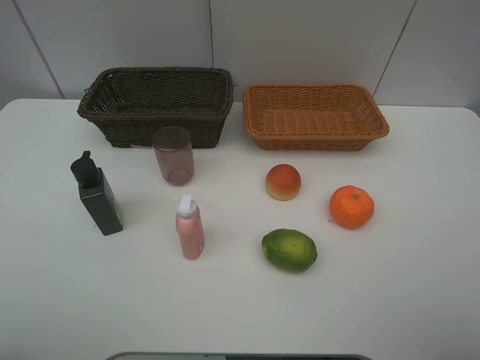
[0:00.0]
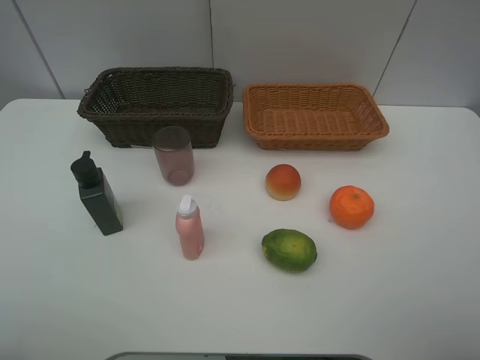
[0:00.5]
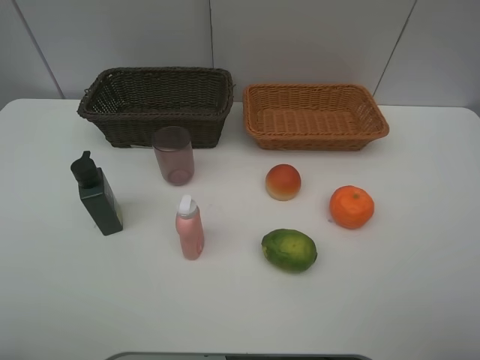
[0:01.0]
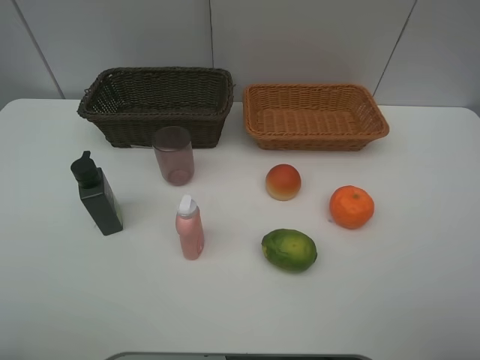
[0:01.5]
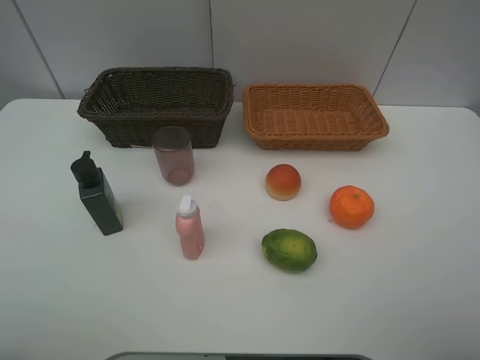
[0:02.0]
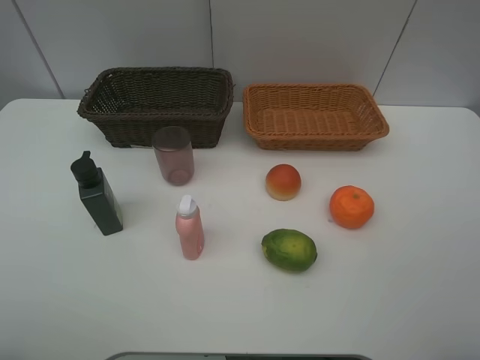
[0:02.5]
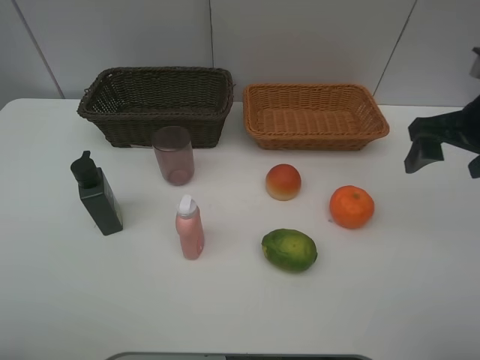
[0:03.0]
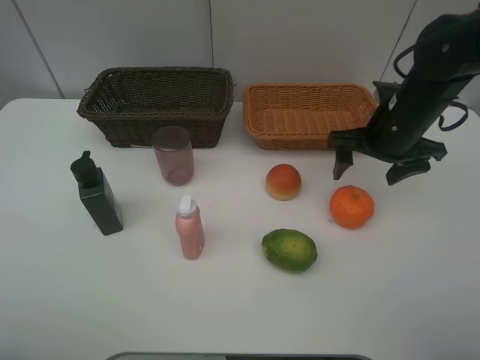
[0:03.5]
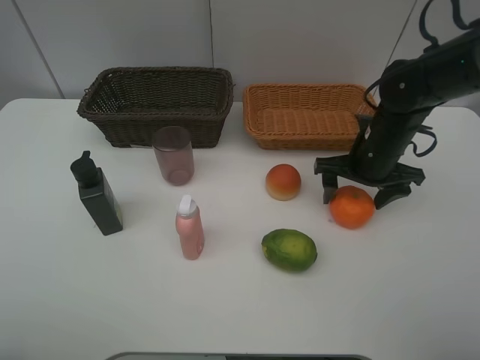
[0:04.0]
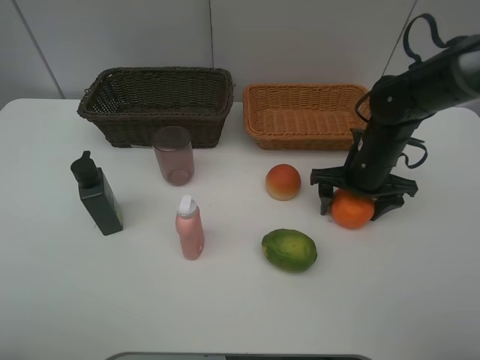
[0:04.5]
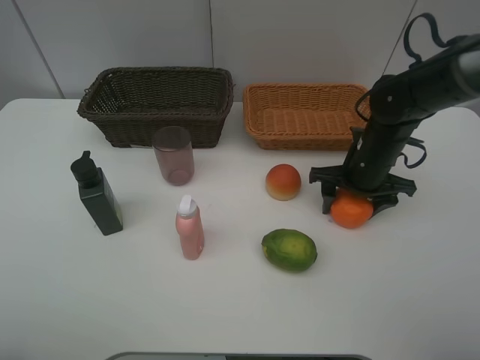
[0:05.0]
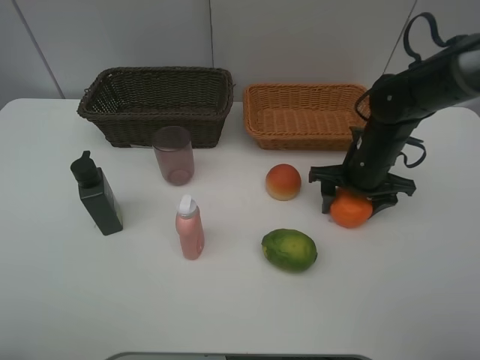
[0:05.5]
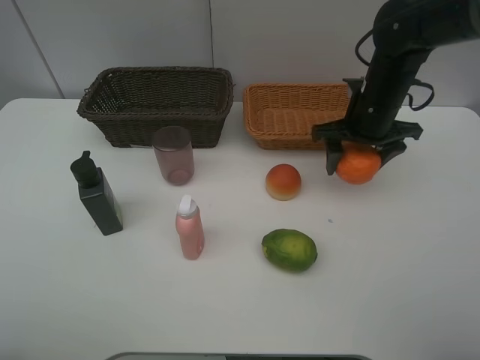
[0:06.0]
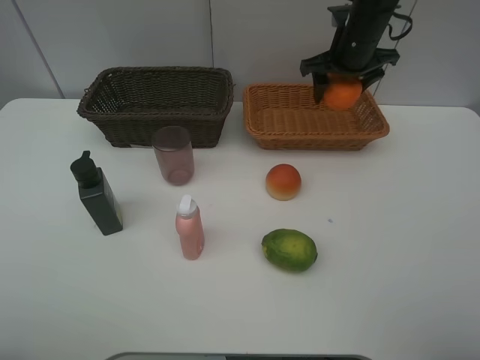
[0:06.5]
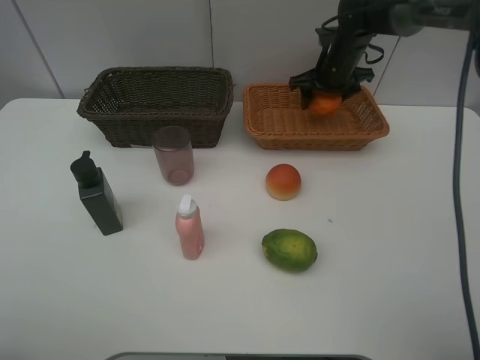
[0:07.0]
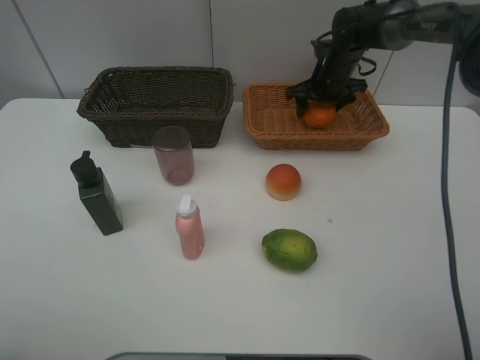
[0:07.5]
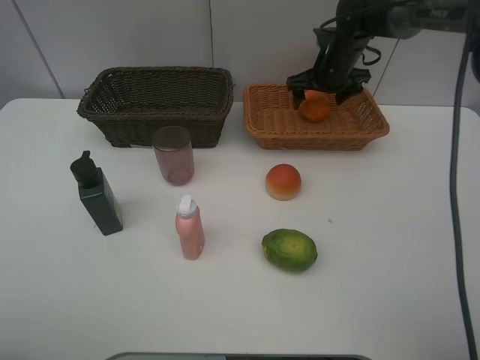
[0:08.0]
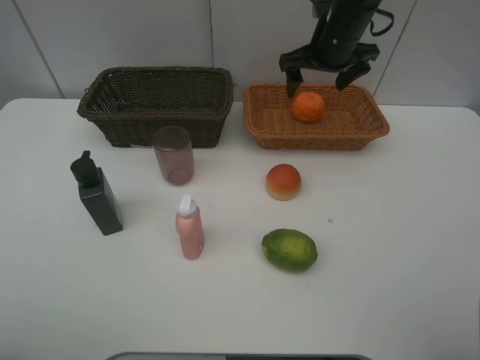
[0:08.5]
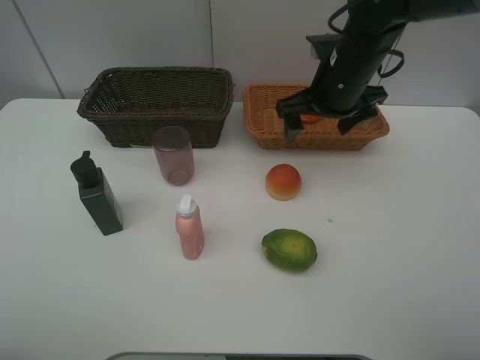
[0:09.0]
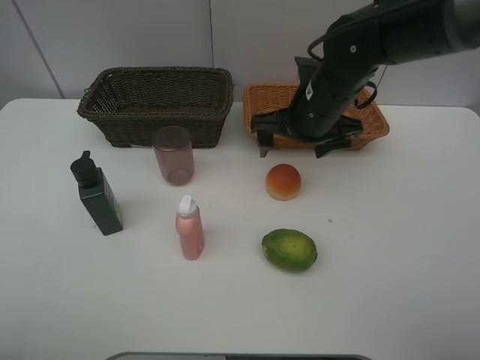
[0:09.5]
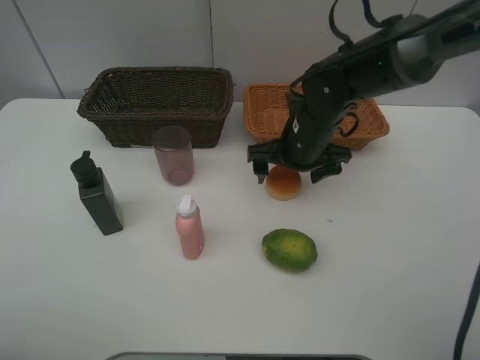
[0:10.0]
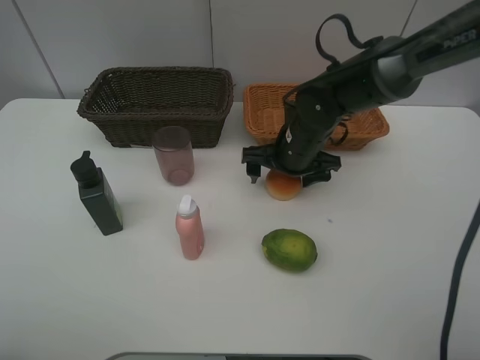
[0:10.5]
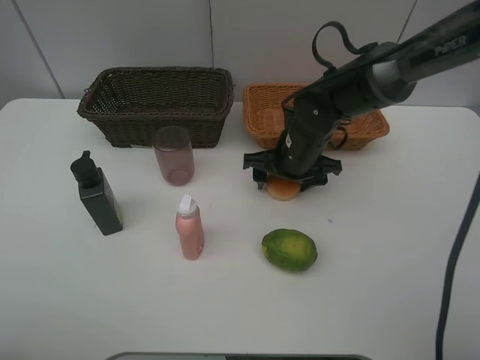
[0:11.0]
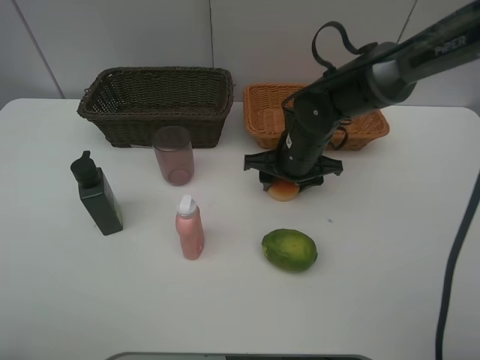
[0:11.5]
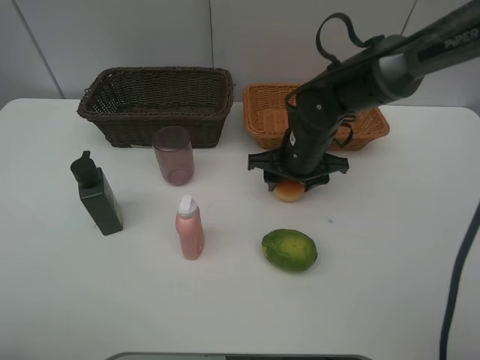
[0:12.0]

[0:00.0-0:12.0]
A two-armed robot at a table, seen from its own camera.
Task of the whole recording: place multiple objects separately in different baskets.
0:00.0 to 0:02.0: Both grippers stay about where they are.
0:02.0 to 0:04.0: The right gripper moves forward and downward, roughly 35 cm.
0:04.0 to 0:06.0: The right gripper goes some 5 cm upward, and closes its fingers.
0:06.0 to 0:08.0: The right gripper shifts about 15 cm forward, and opens.
0:08.0 to 0:10.0: The right gripper is displaced backward and to the left by some 20 cm.
0:10.0 to 0:12.0: The right gripper closes up.

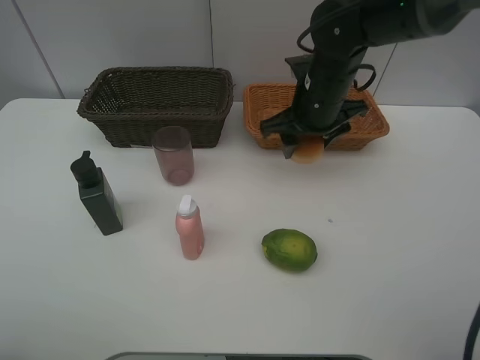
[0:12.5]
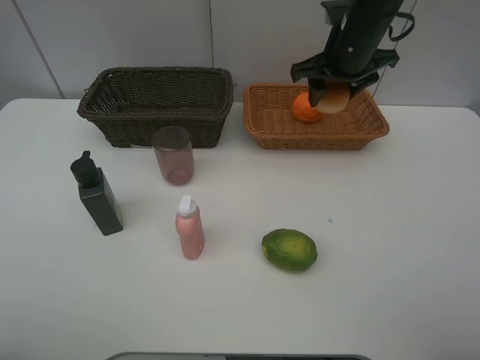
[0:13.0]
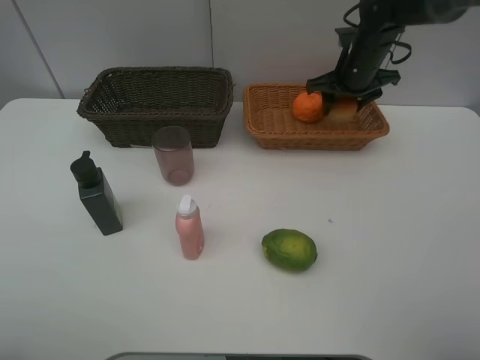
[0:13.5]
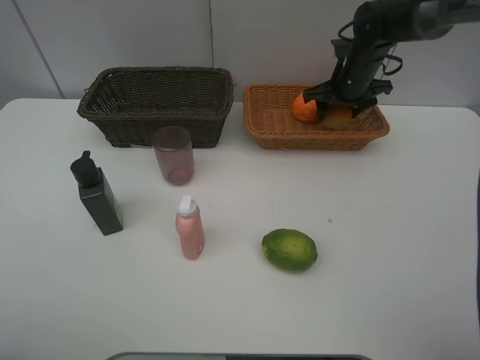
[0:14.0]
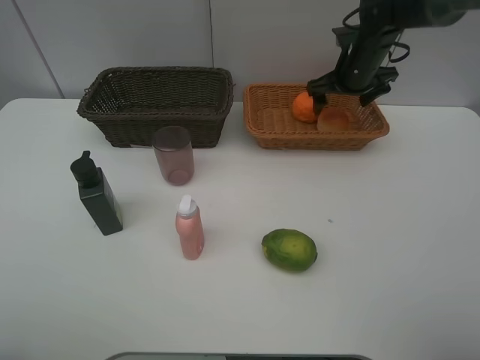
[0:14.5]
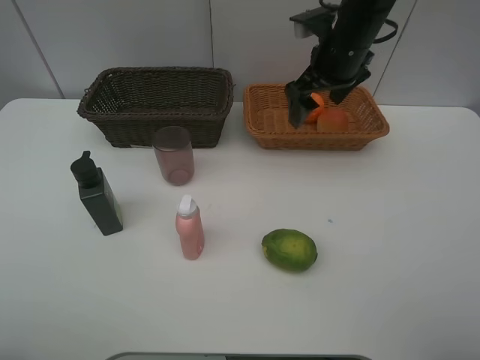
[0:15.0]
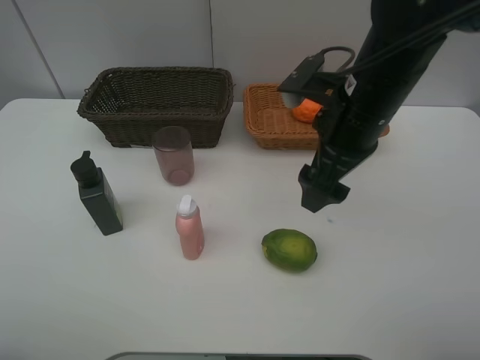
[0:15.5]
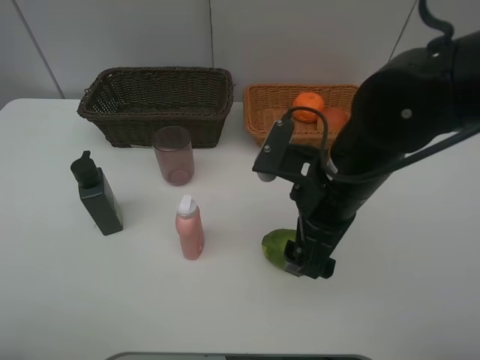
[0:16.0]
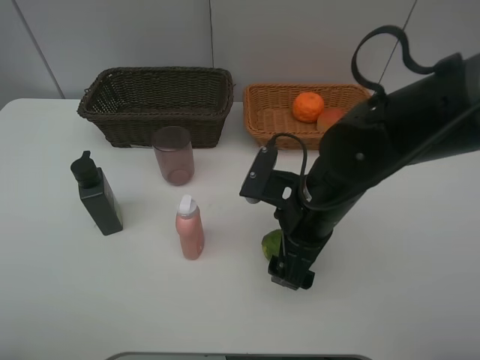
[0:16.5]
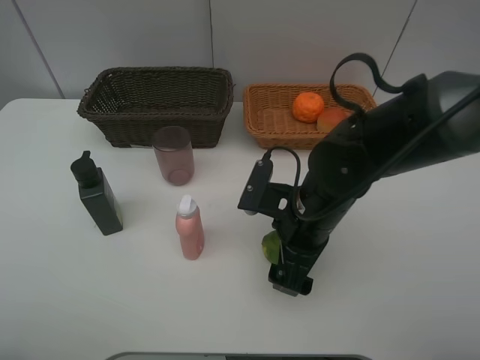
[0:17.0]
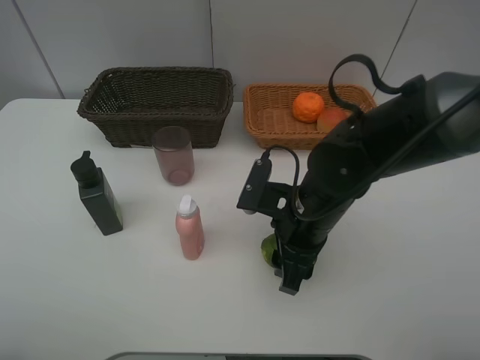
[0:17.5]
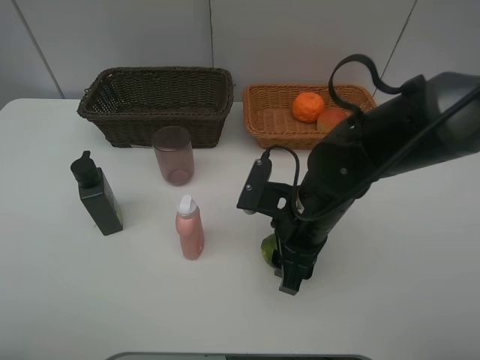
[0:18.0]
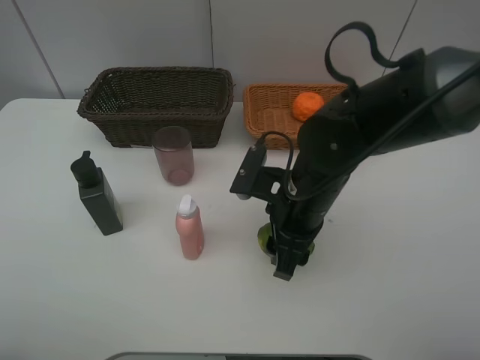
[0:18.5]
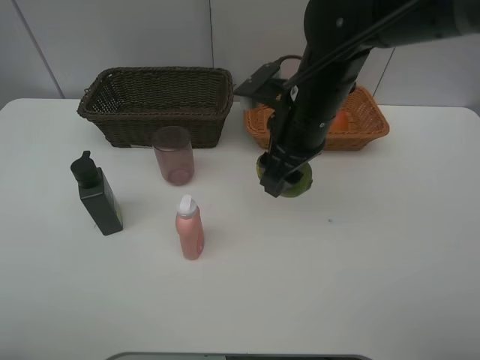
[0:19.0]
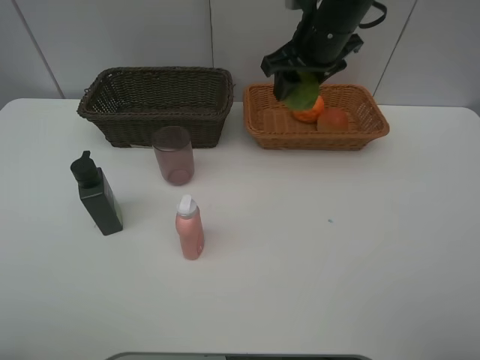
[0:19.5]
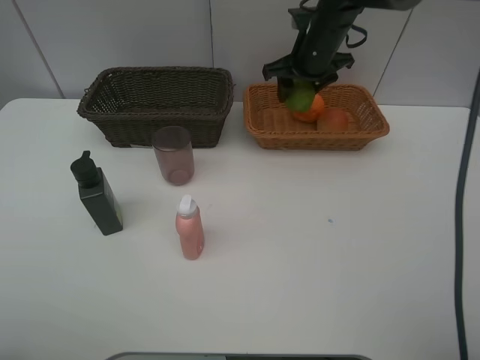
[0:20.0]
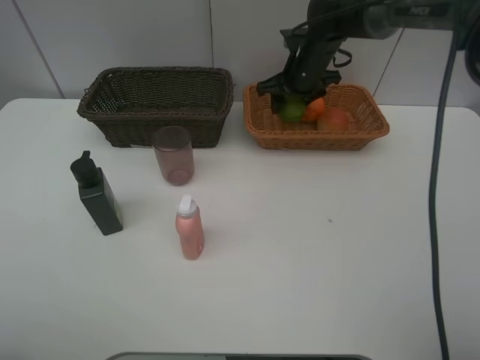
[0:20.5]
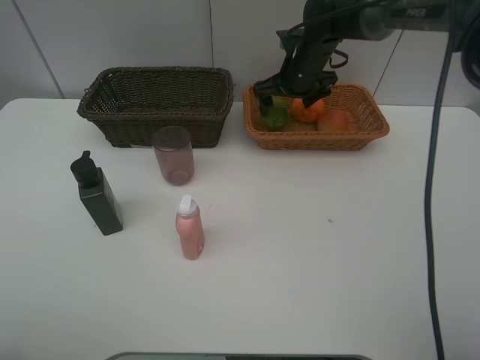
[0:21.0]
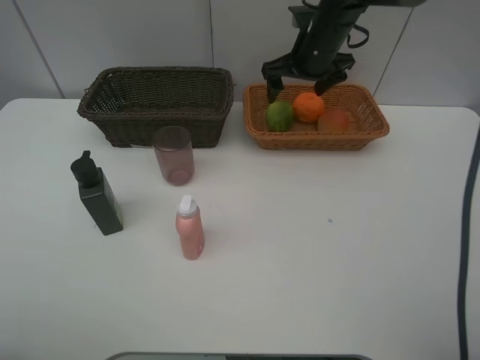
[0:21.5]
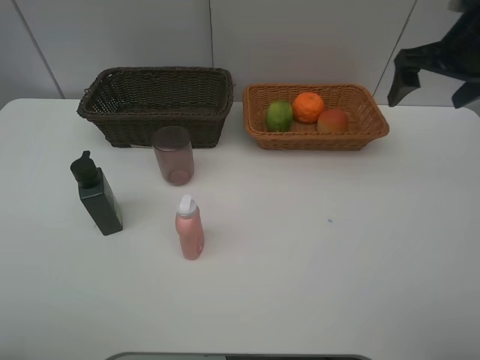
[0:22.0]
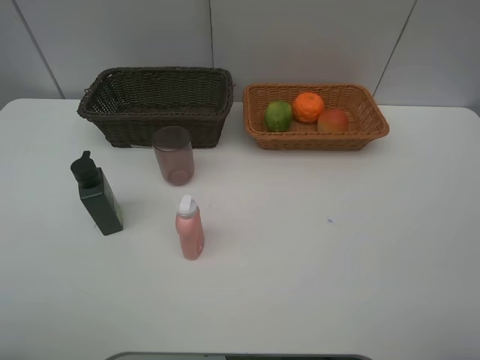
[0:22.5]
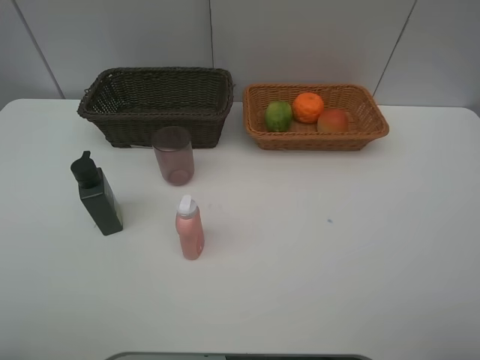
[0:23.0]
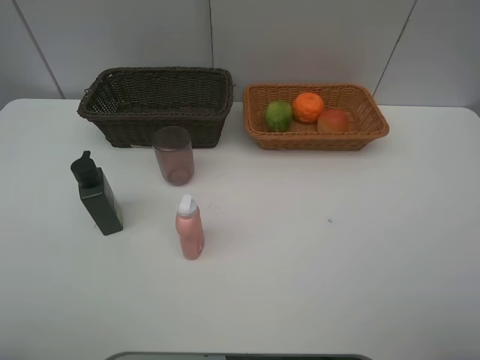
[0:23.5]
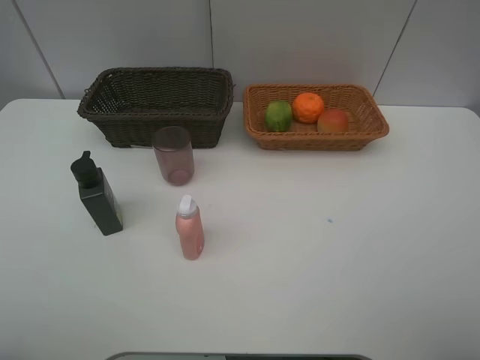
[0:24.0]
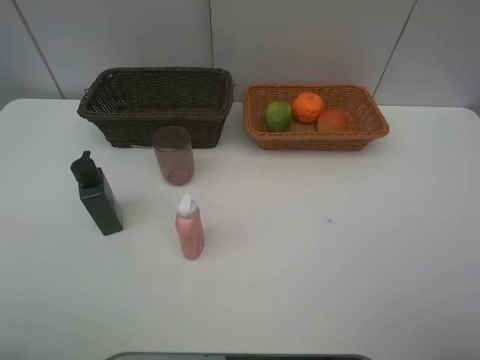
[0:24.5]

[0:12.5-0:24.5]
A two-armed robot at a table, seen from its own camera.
Task of the whole recording: place multiple objects separately in different baskets.
0:12.5 to 0:14.5: The right gripper heads forward and to the right, covering about 15 cm, and opens.
0:14.5 to 0:16.5: The right gripper heads backward and to the left, covering roughly 30 cm.
0:16.5 to 0:18.5: The right gripper closes its fingers.
0:18.5 to 0:20.5: The right gripper heads forward, covering some 25 cm.
0:20.5 to 0:22.5: The right gripper is displaced backward, upward and to the right by some 50 cm, and opens its fingers.

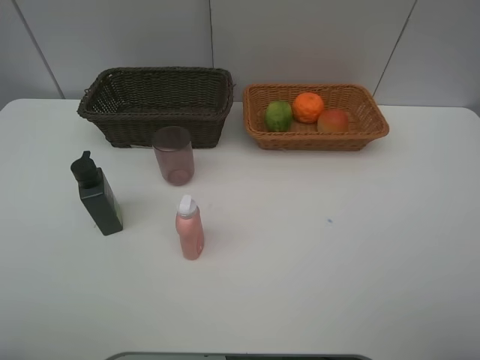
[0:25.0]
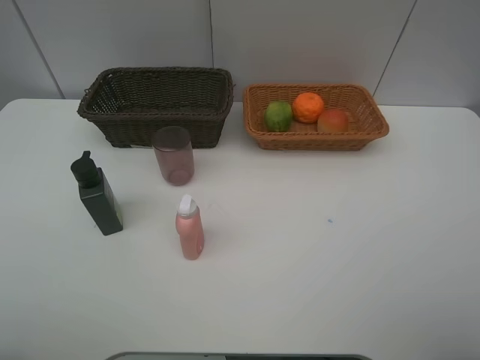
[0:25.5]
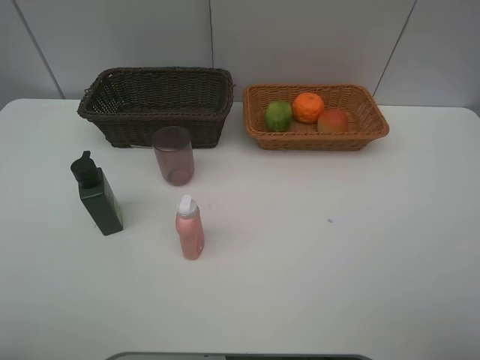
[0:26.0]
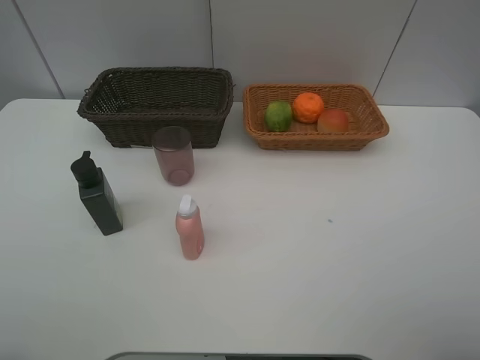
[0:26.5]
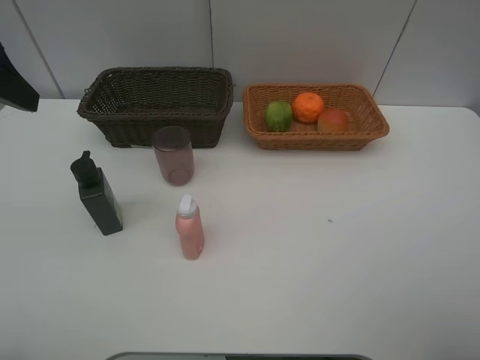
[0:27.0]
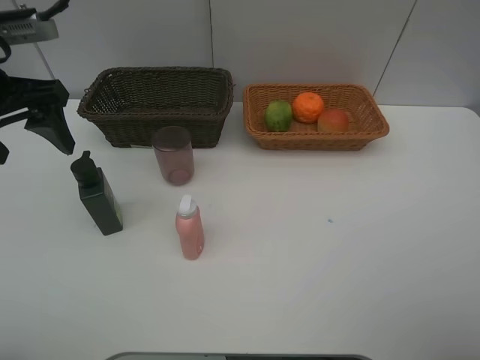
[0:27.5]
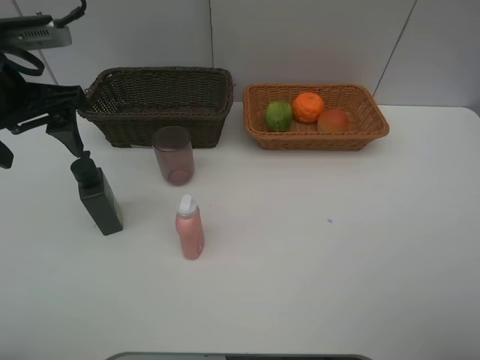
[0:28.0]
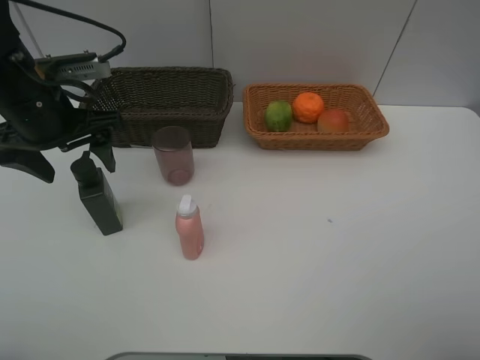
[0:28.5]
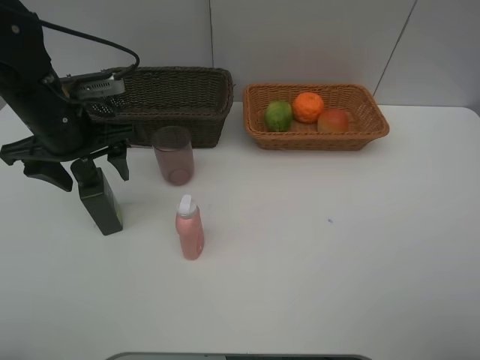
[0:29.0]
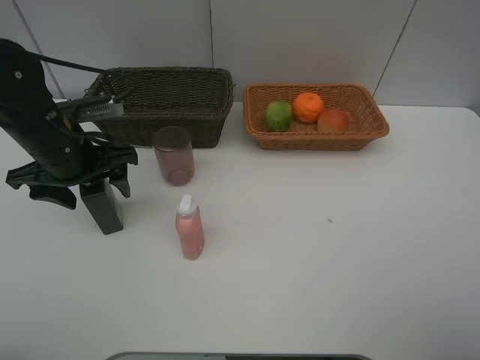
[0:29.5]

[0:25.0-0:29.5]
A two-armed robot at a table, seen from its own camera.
Task of the whole recording: place multiple objects separately in different baskets.
0:25.0 to 0:27.0: The left gripper travels forward by about 20 cm.
0:27.0 to 0:29.5: The left gripper shifts some 15 cm downward.
